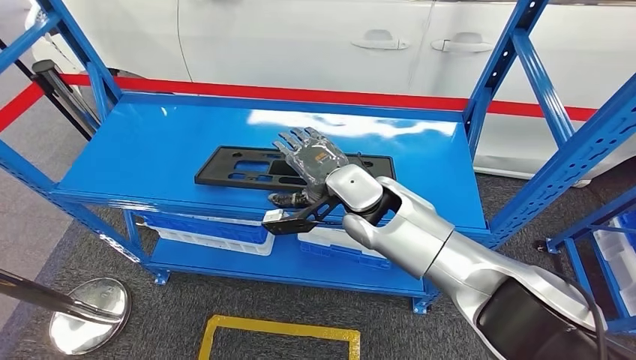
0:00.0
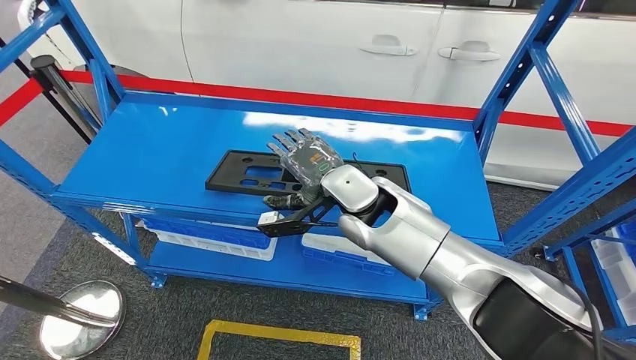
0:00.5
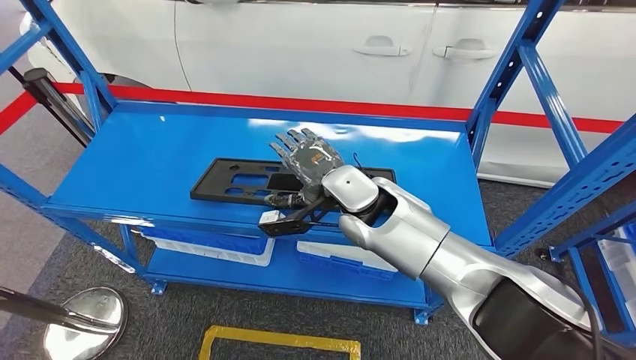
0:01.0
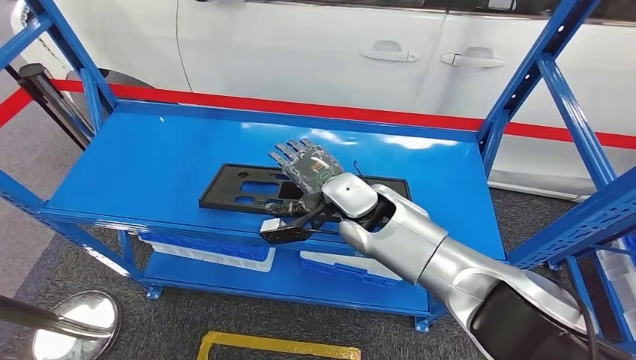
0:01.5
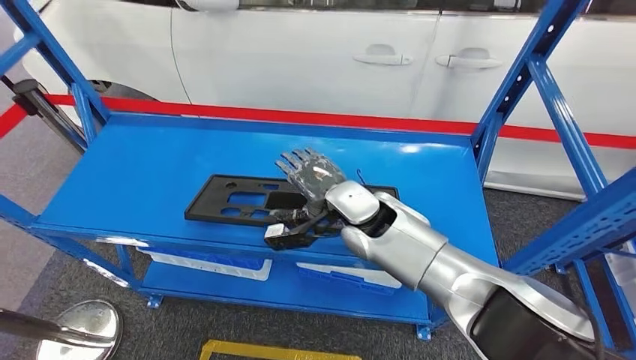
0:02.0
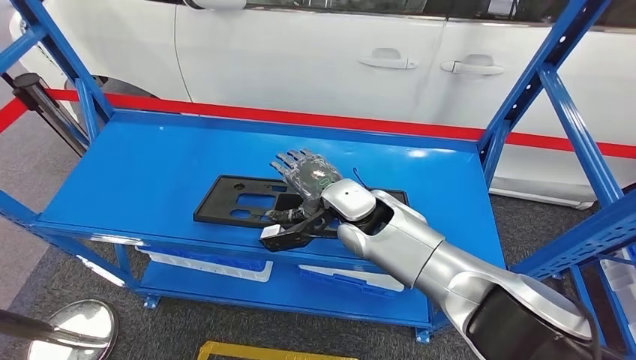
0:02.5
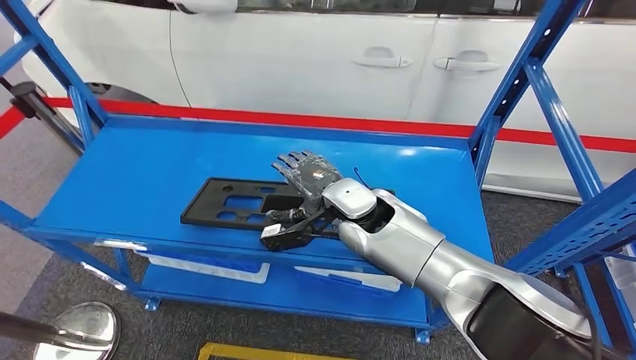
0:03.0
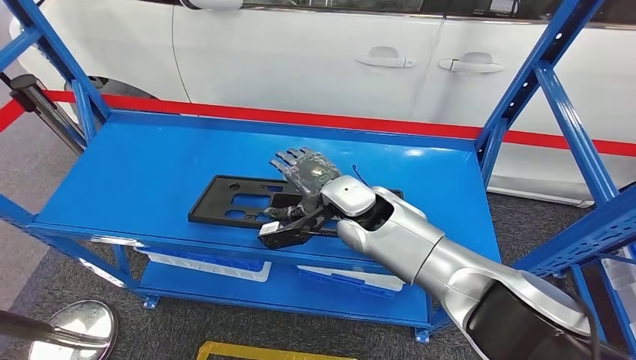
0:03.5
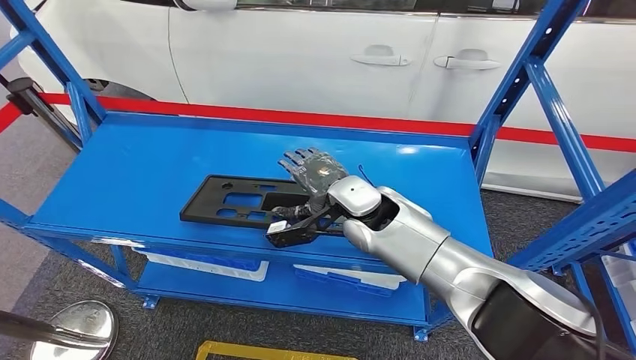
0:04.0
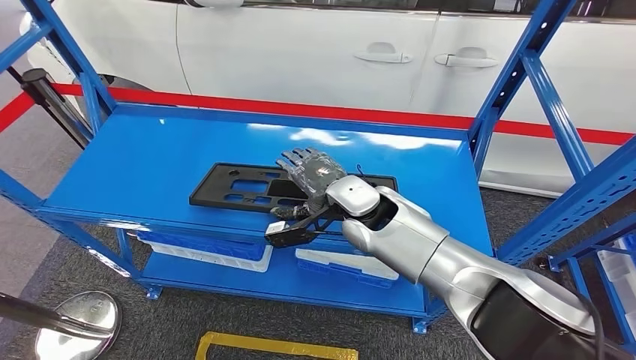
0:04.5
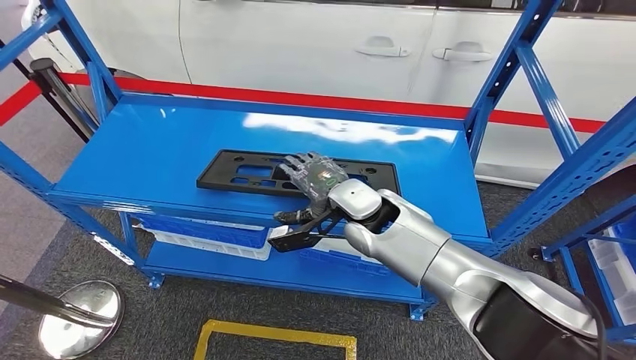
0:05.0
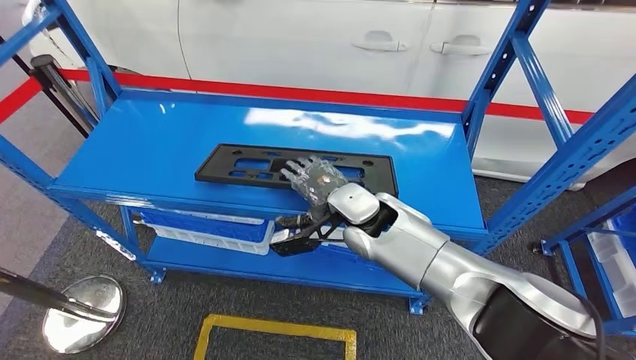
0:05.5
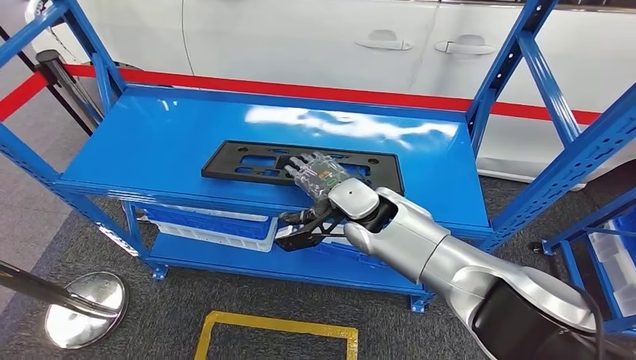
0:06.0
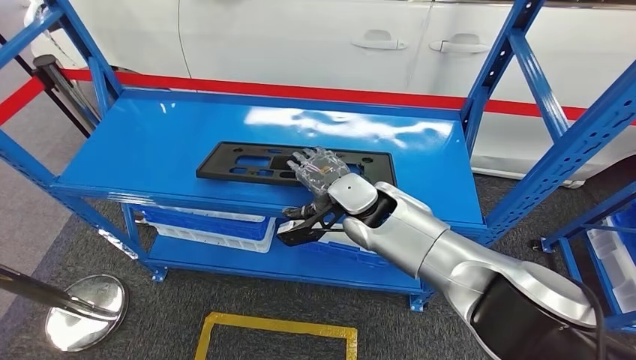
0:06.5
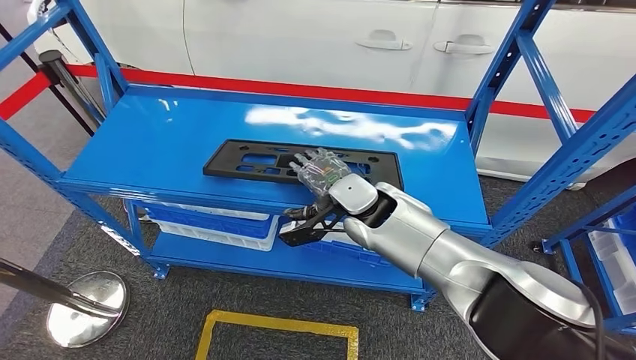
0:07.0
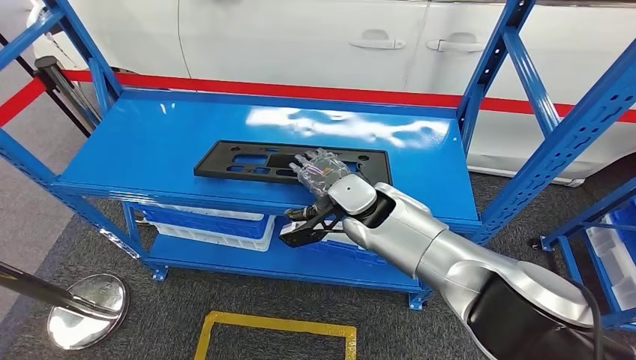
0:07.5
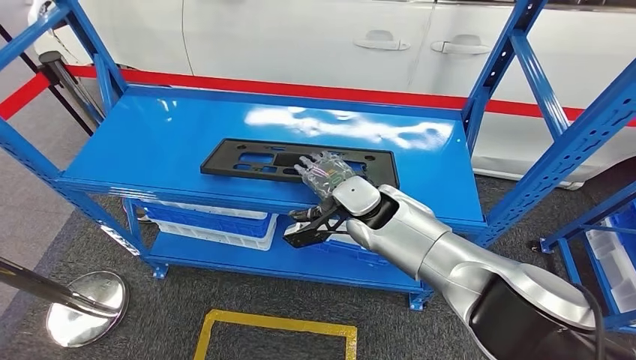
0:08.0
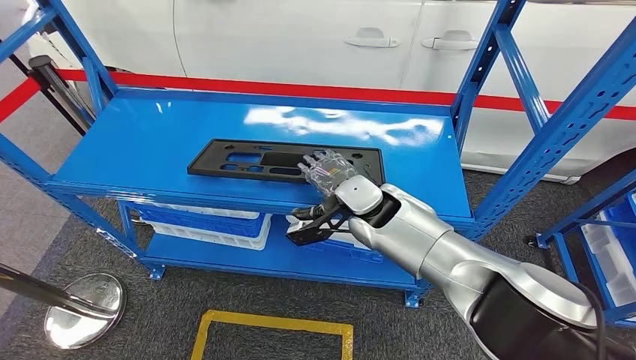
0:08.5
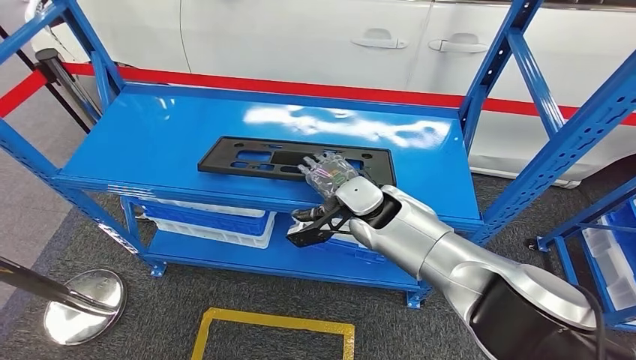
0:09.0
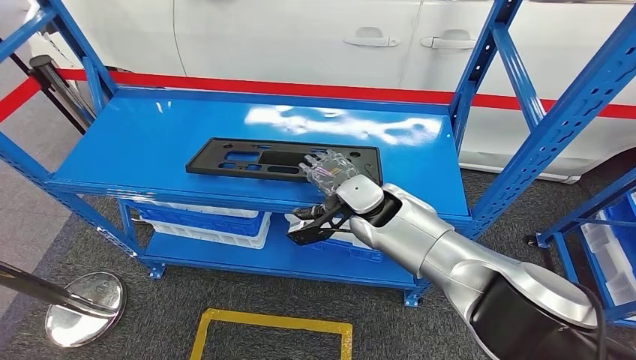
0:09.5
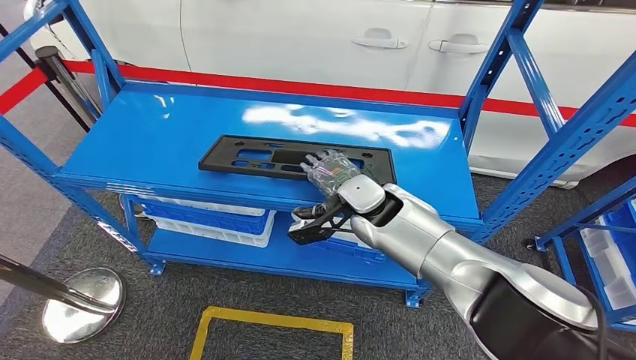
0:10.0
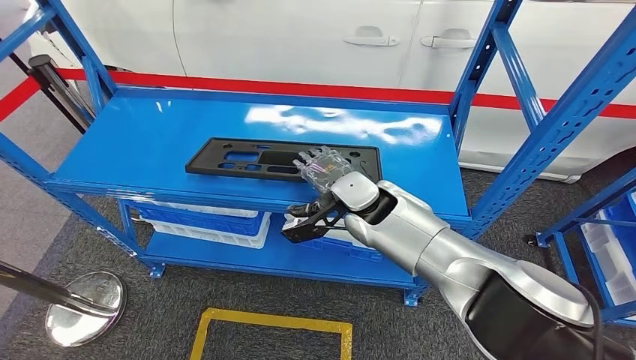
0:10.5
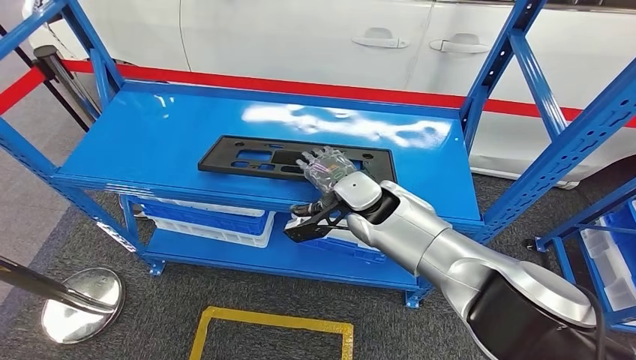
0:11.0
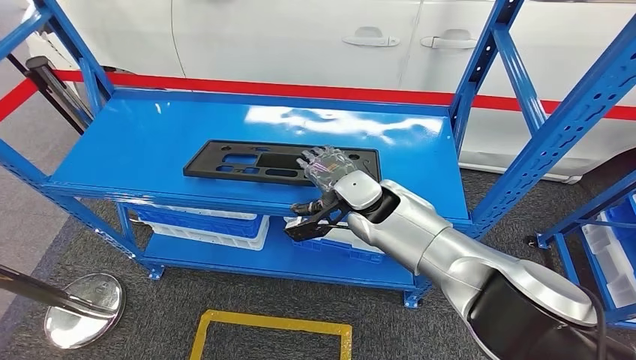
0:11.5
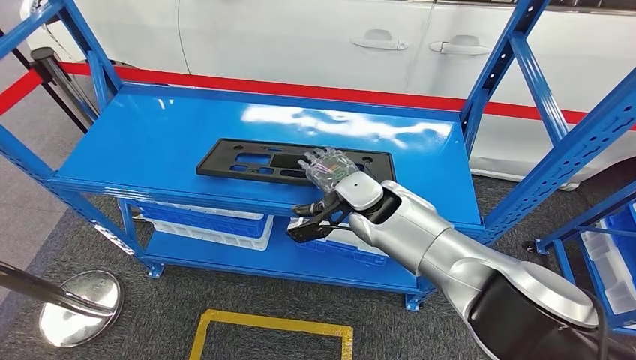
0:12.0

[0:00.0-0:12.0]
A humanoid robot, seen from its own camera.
0:02.0 to 0:04.0: Both hands stay about where they are.
0:06.0 to 0:08.0: Both hands stay put.
0:08.0 to 0:10.0: The two hands keep their place.
0:10.0 to 0:12.0: The hands move only a little.

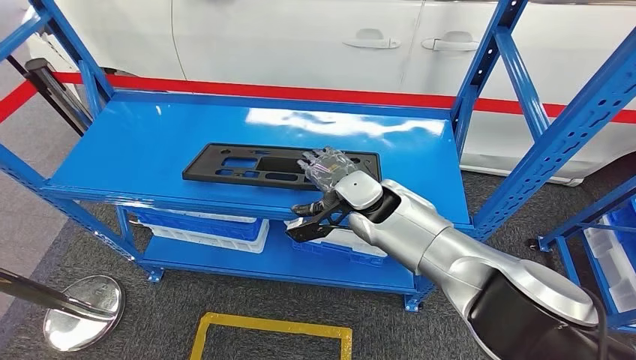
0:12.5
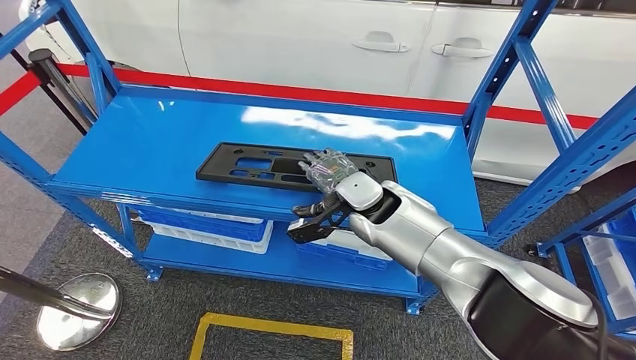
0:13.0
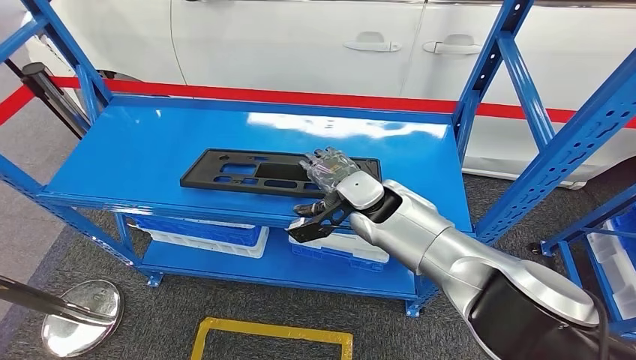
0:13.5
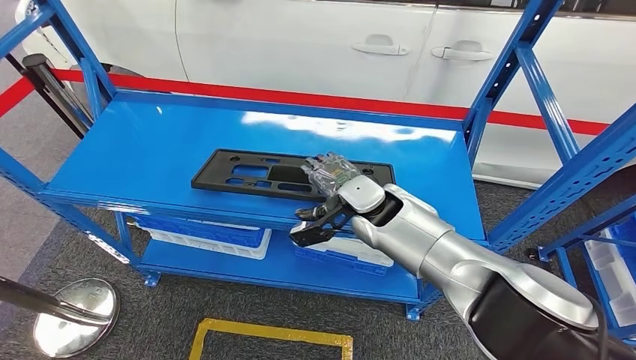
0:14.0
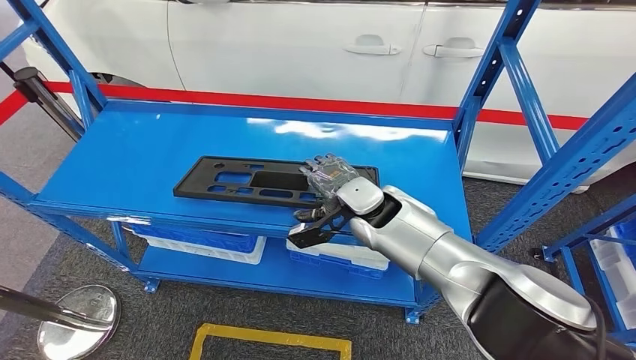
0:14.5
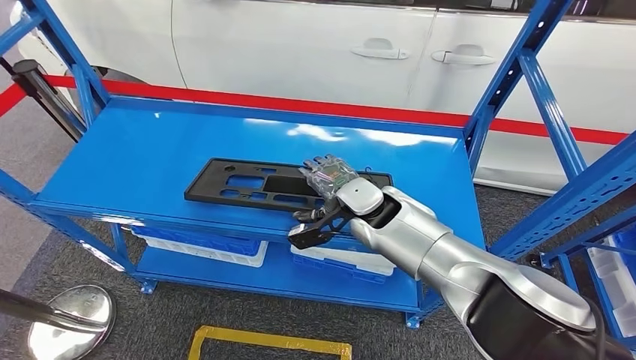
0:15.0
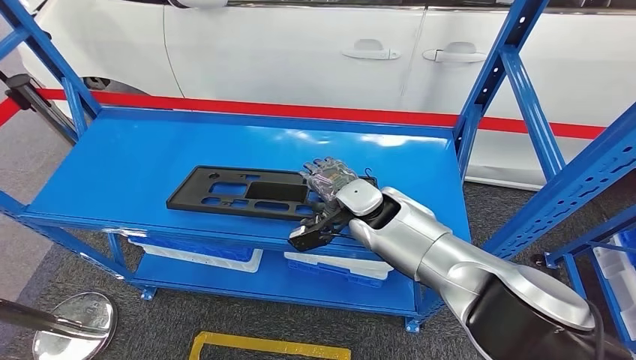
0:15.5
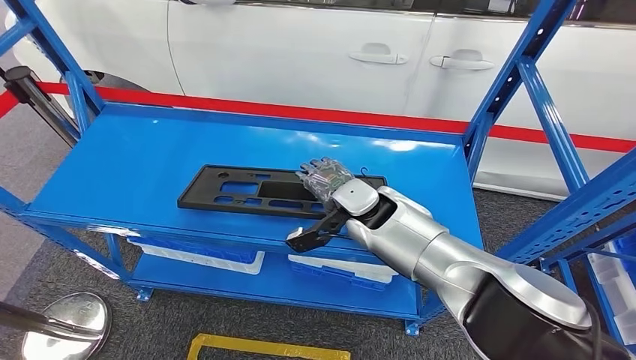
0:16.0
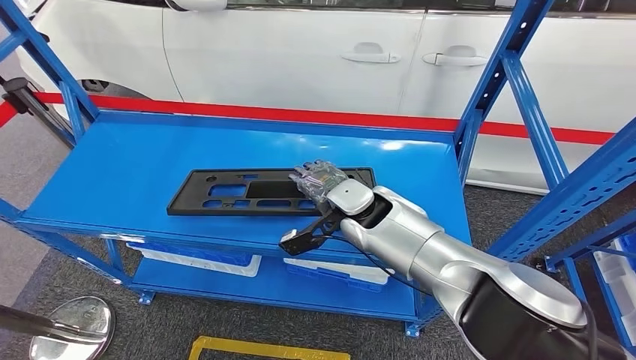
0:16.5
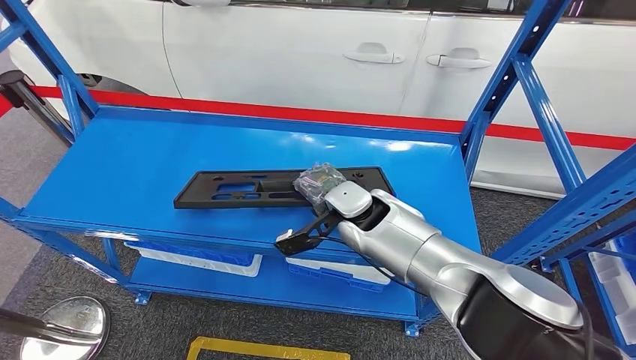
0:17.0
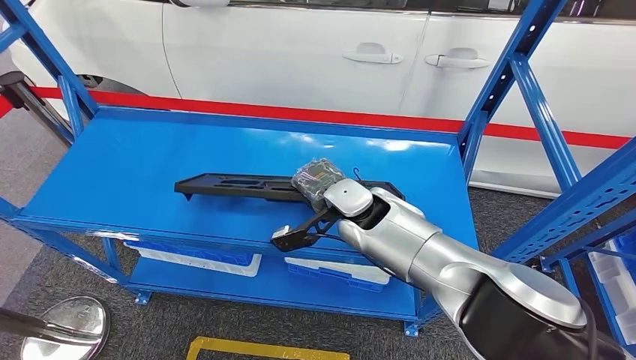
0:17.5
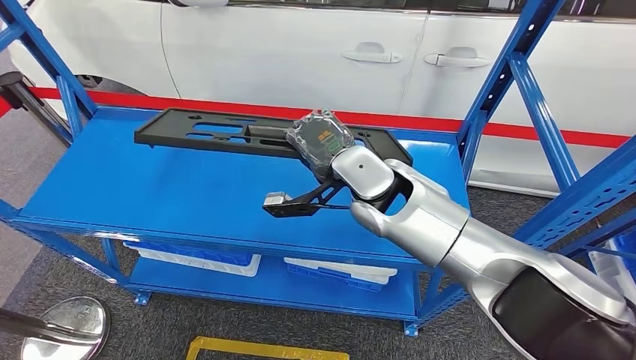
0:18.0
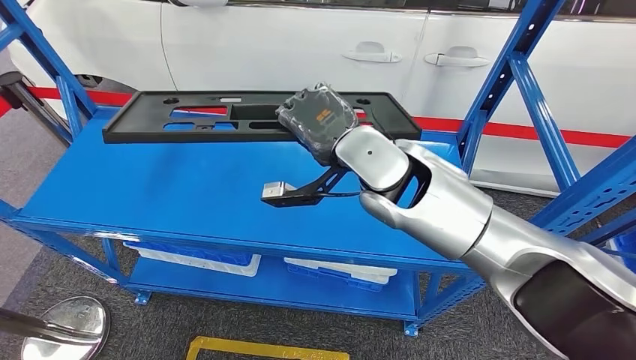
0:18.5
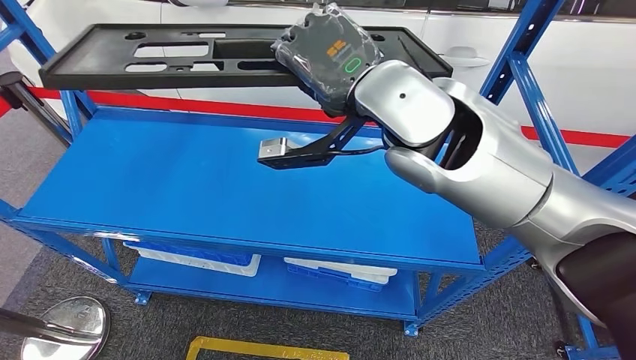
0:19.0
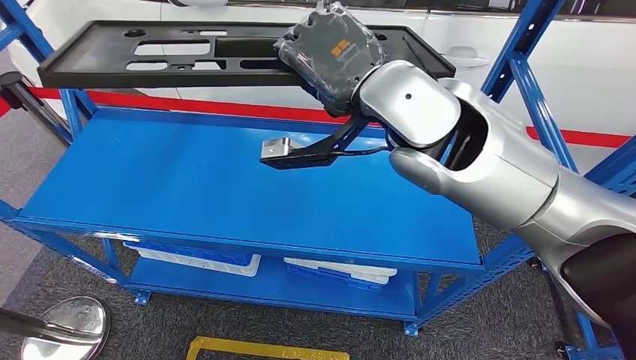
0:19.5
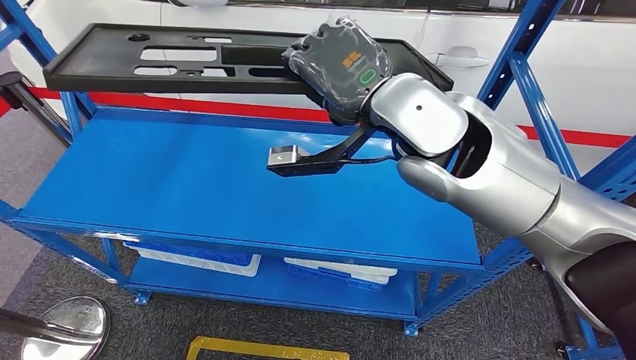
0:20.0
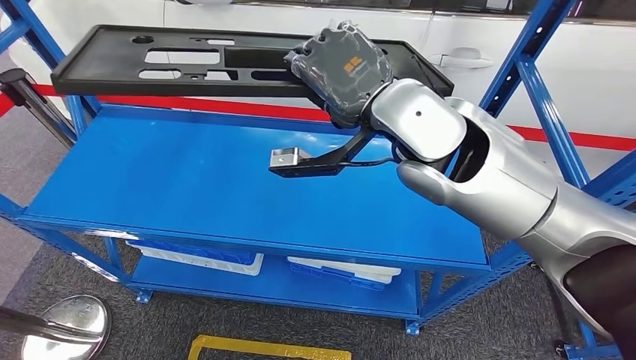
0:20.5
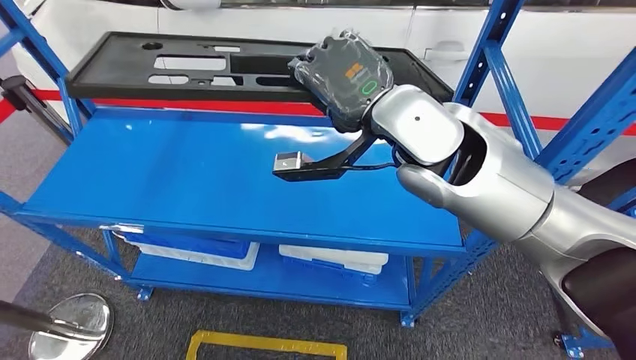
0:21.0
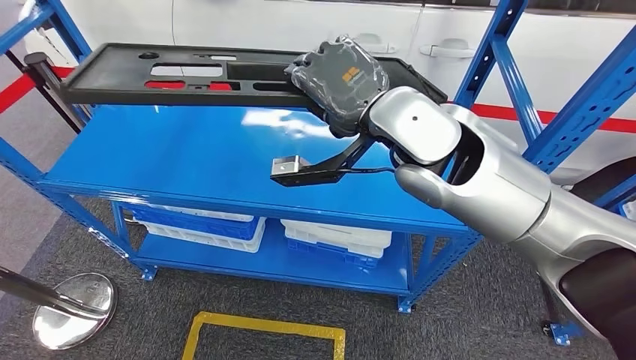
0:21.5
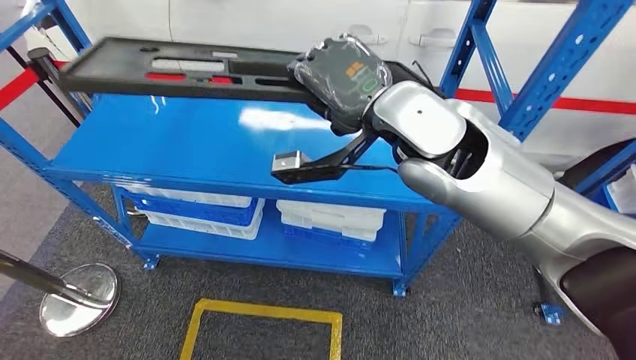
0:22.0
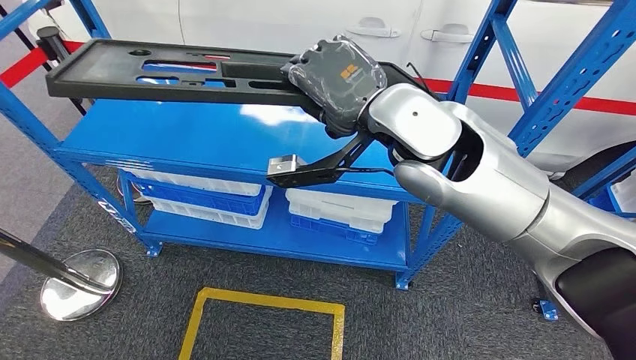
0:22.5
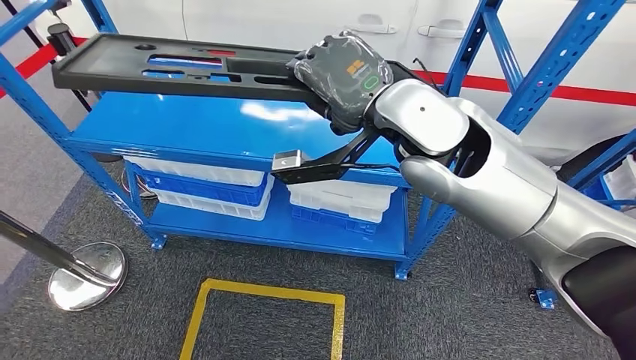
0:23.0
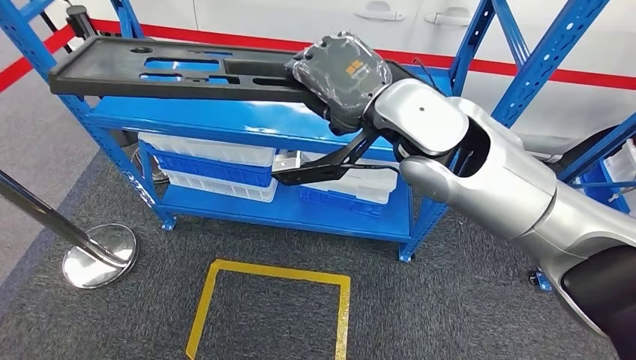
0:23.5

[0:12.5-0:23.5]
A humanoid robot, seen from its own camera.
Step, 0:12.5 to 0:18.5: Pick up the large material from the shelf.
